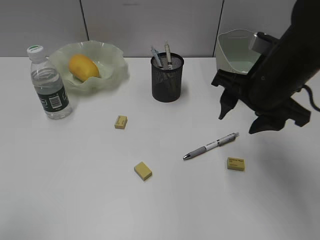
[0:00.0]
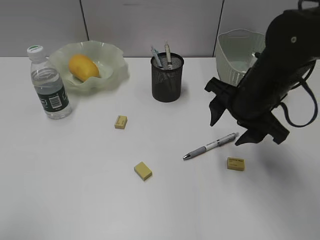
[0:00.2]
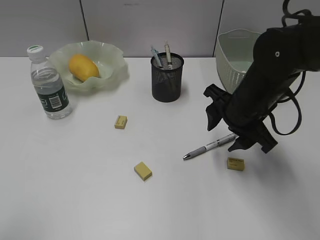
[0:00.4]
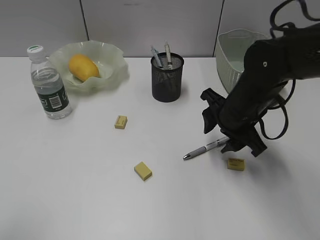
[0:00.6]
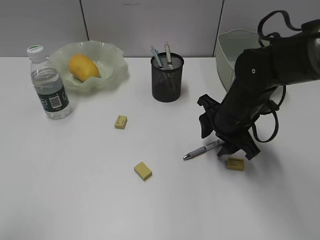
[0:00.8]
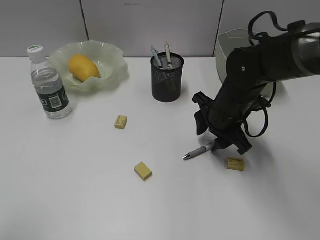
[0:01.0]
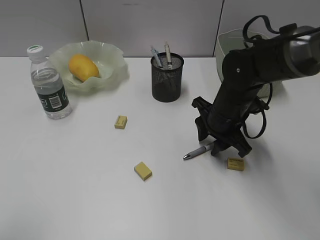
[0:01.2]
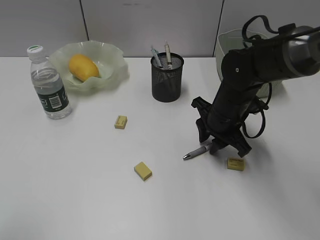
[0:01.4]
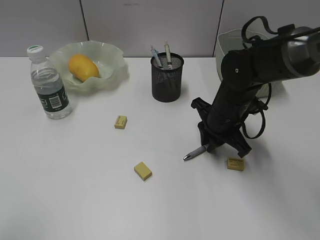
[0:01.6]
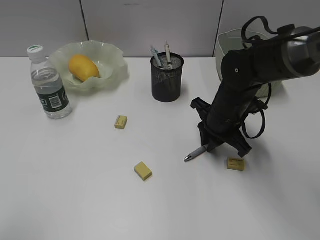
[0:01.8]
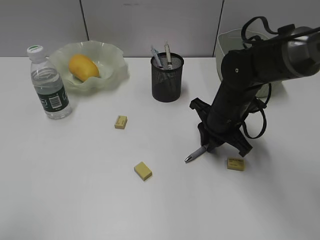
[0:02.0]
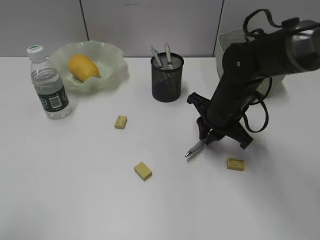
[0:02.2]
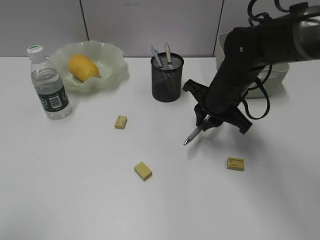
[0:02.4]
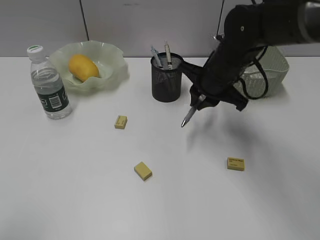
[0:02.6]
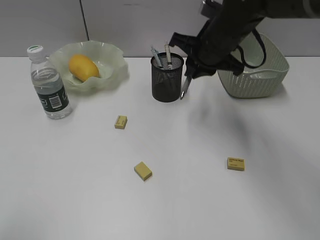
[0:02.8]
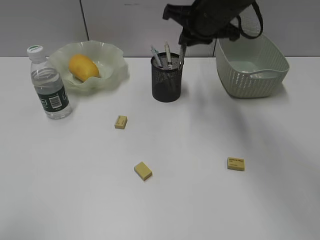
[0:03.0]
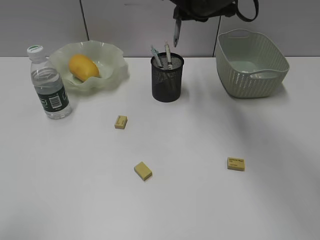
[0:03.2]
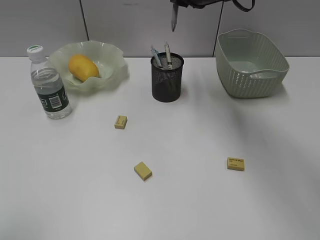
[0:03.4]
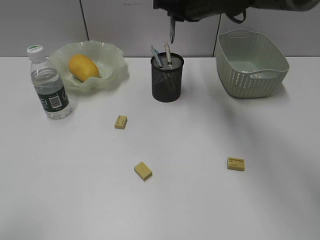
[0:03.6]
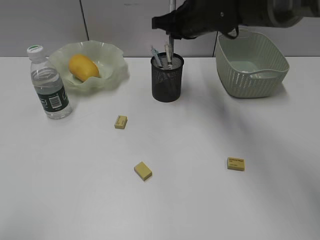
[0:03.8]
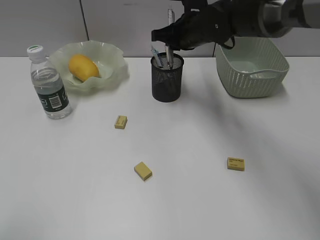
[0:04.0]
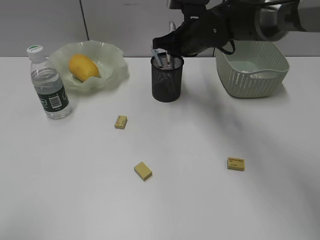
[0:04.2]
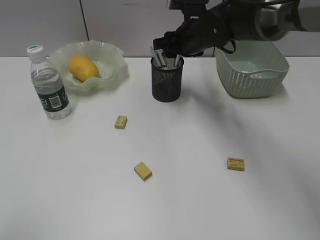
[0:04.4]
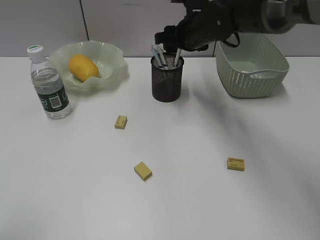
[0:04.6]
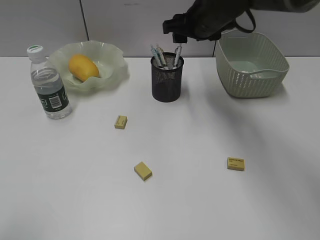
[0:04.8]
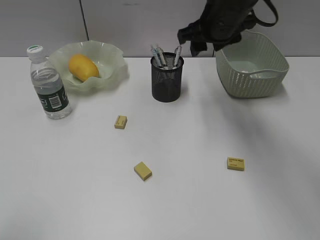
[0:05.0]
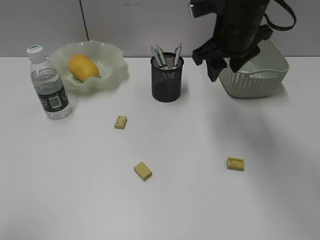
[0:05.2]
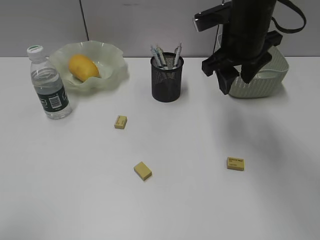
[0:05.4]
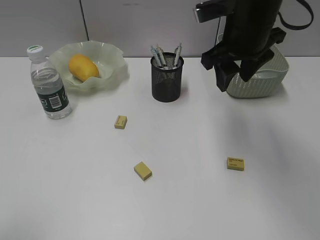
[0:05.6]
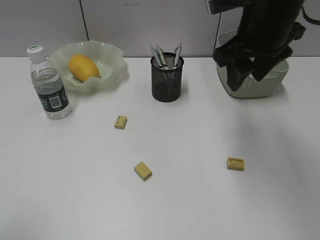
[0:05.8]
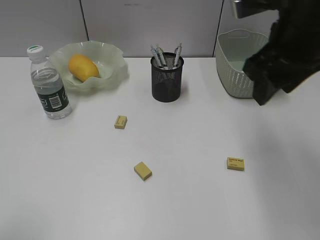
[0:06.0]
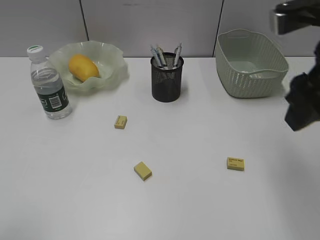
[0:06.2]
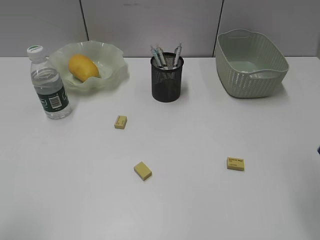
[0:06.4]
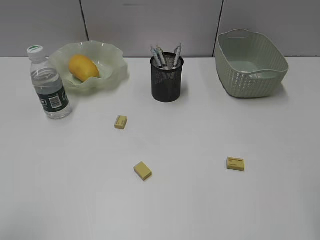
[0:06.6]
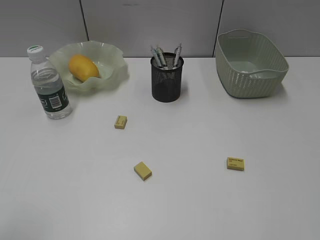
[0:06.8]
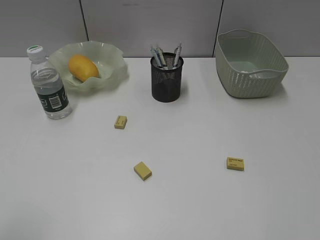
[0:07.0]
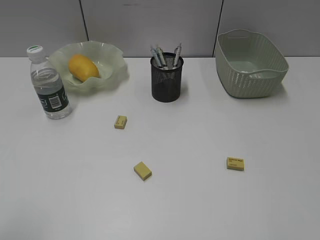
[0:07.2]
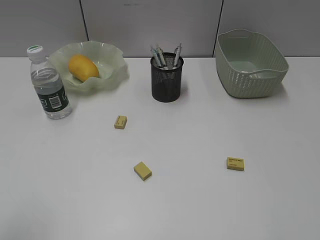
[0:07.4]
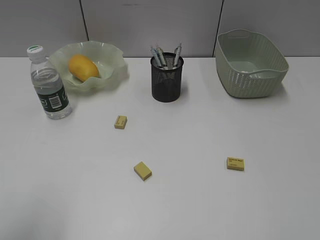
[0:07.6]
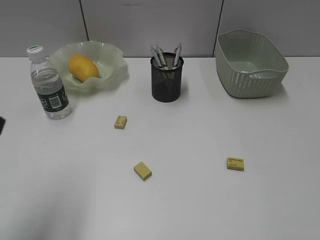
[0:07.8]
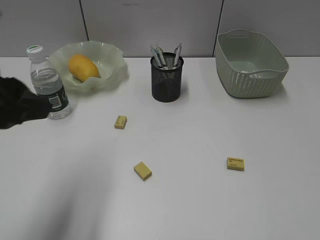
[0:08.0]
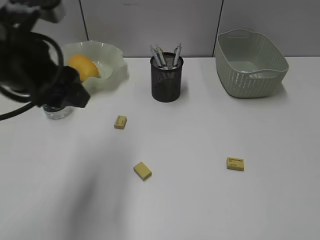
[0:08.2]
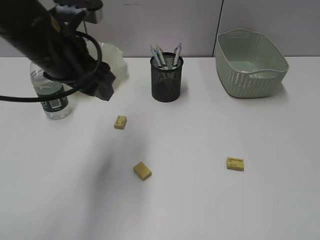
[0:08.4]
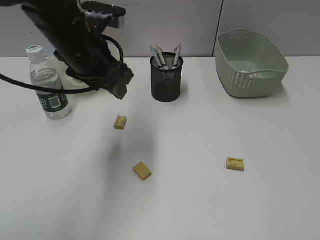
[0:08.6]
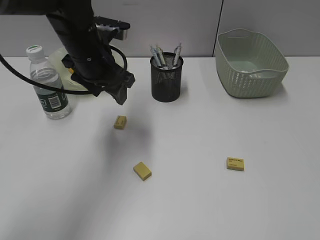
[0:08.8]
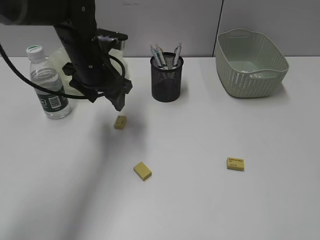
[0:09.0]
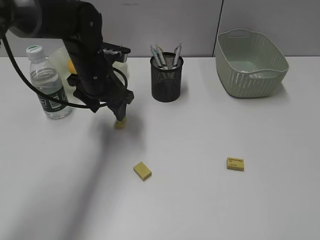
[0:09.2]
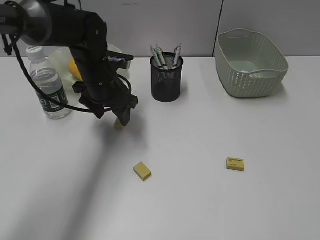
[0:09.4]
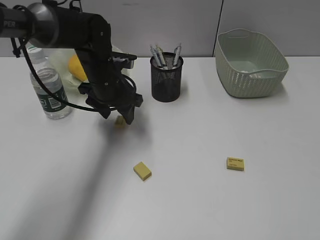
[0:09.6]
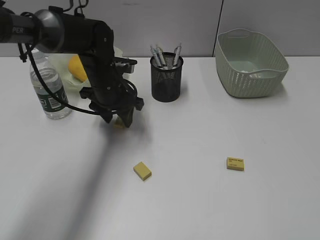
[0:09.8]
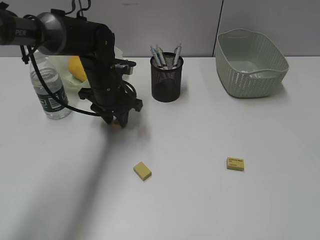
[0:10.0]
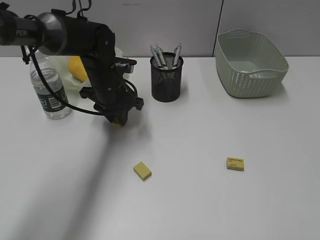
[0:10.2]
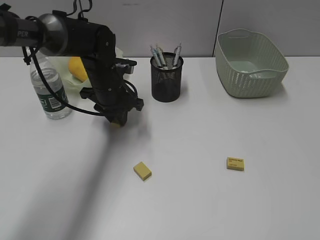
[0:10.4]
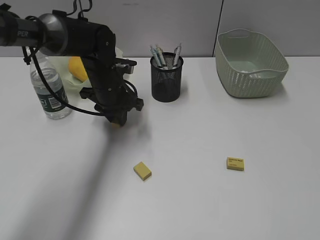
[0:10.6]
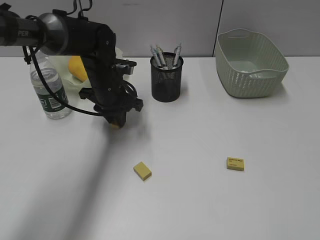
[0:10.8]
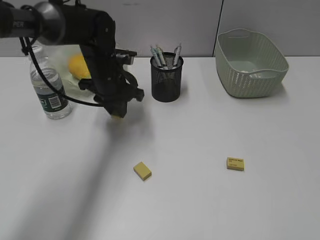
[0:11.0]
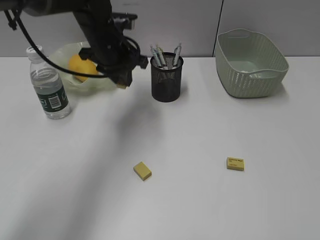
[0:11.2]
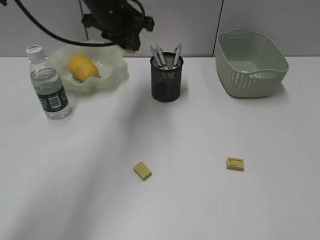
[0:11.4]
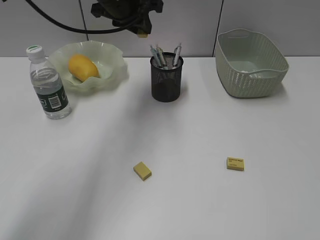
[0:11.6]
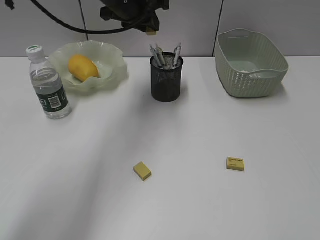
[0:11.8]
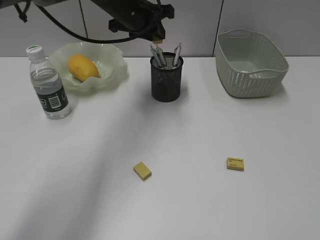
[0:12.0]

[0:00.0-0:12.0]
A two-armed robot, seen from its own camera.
Step, 0.0 to 2.0 s: Grasp the gray pen with right gripper.
Step, 2.2 to 4.4 s: Place the gray pen in pen holder with right gripper.
Step, 4.6 to 10.6 s: Grasp the eraser with left gripper.
0.0 to 1.6 s: The right gripper heads downward and forward, covering approximately 10 cm, and closes up.
1.6 to 3.0 s: The right gripper travels upward and forward by approximately 15 cm.
3.0 to 4.4 s: The right gripper moves downward, some 10 cm, and opens.
4.4 to 6.0 s: The right gripper shifts roughly 25 cm backward, upward and to the right.
6.0 to 7.6 s: The right gripper shifts roughly 25 cm backward and to the right.
7.6 to 9.0 s: The left gripper heads forward and to the right, covering roughly 35 cm.
9.0 to 10.4 s: The left gripper moves downward, some 5 cm, and closes.
10.4 to 12.0 s: The left gripper travels upward by some 15 cm.

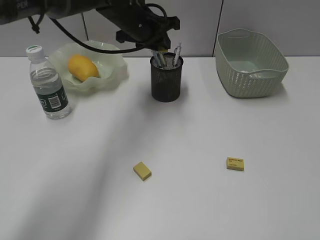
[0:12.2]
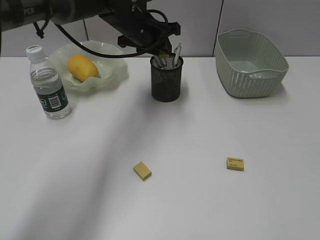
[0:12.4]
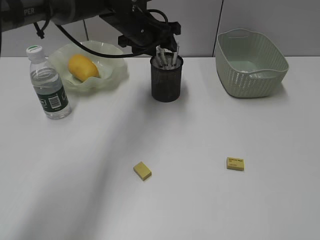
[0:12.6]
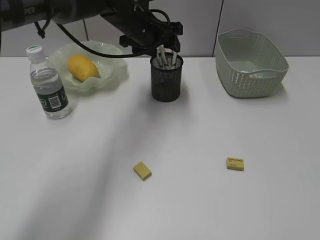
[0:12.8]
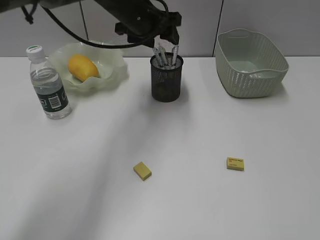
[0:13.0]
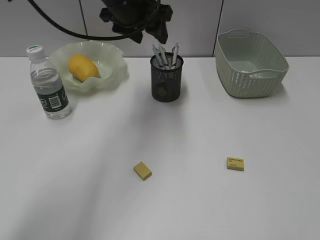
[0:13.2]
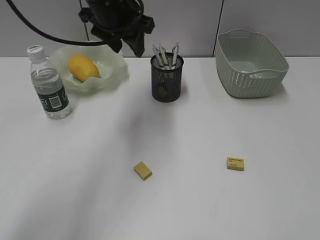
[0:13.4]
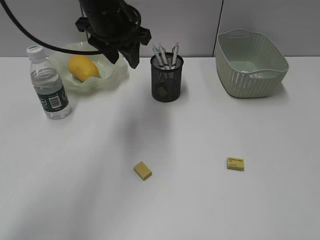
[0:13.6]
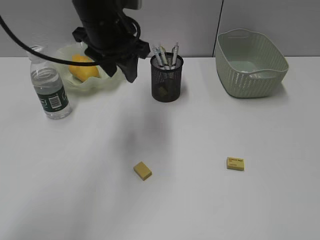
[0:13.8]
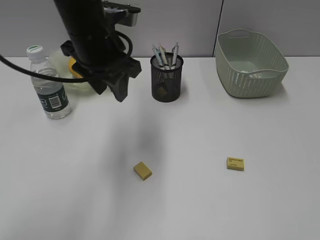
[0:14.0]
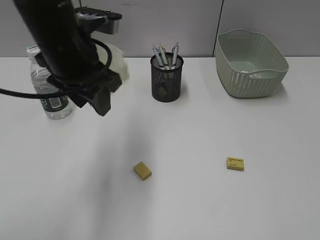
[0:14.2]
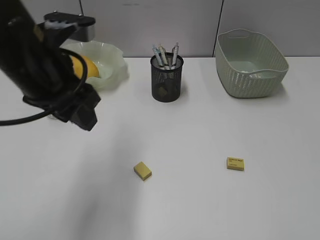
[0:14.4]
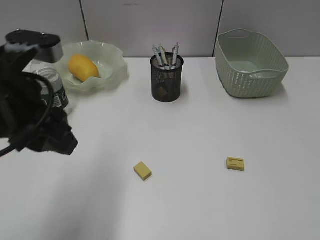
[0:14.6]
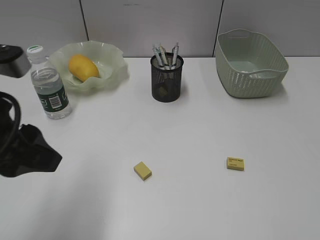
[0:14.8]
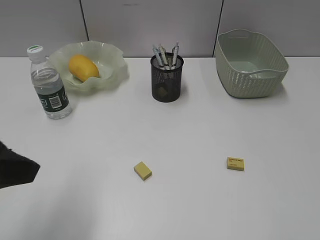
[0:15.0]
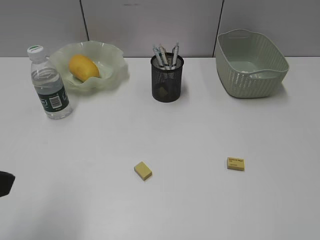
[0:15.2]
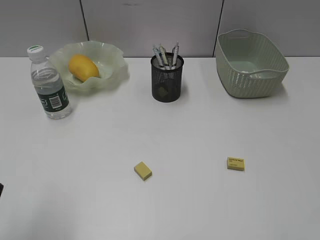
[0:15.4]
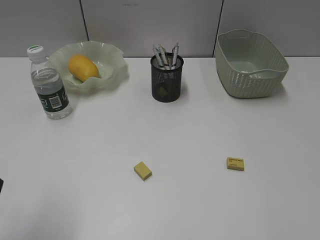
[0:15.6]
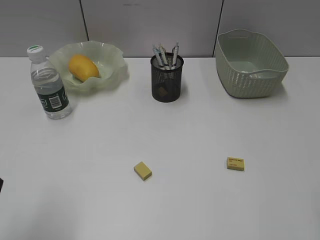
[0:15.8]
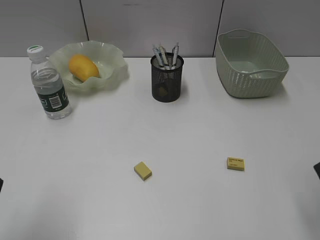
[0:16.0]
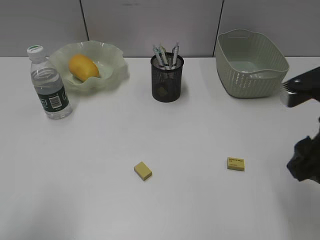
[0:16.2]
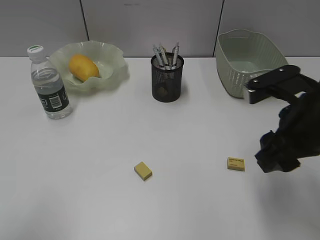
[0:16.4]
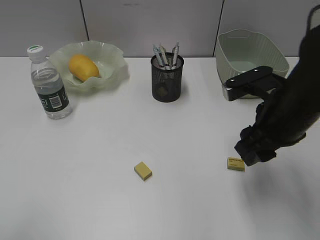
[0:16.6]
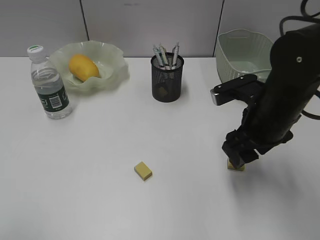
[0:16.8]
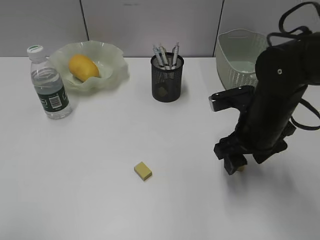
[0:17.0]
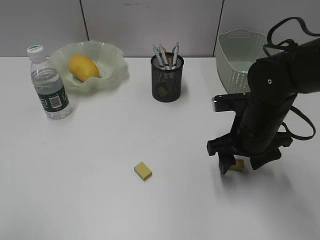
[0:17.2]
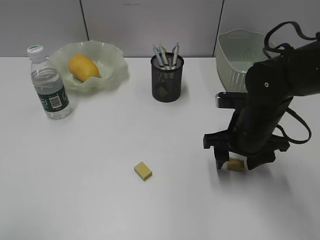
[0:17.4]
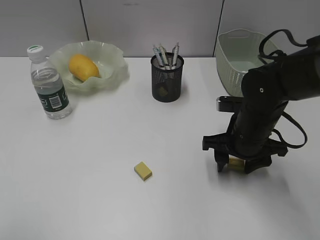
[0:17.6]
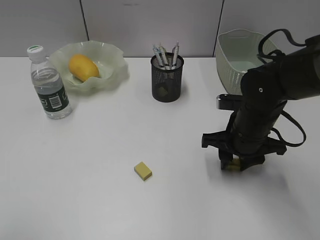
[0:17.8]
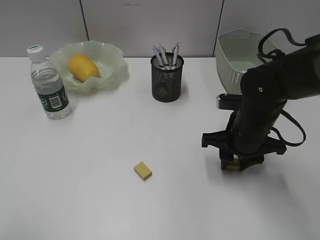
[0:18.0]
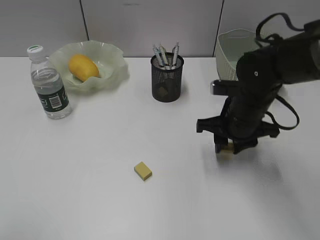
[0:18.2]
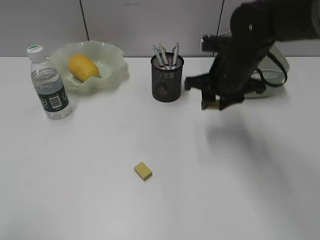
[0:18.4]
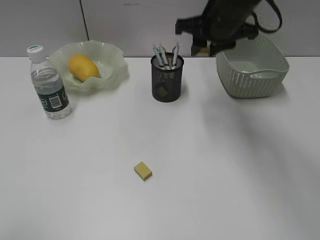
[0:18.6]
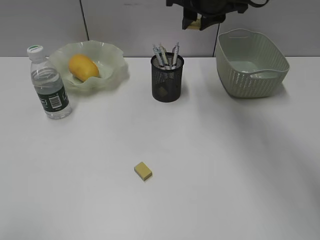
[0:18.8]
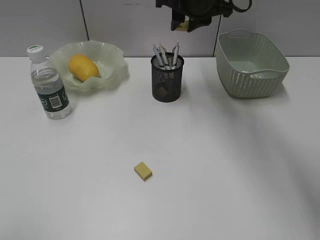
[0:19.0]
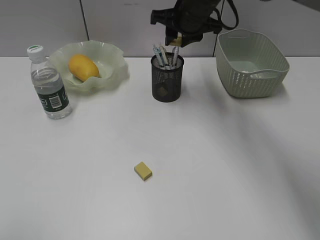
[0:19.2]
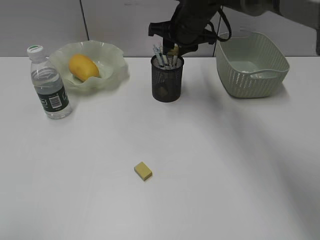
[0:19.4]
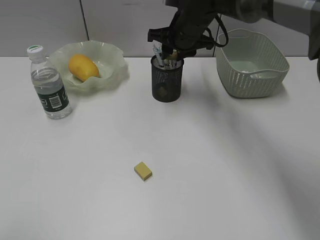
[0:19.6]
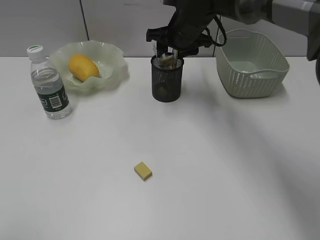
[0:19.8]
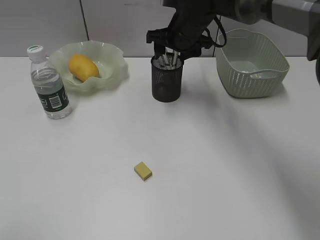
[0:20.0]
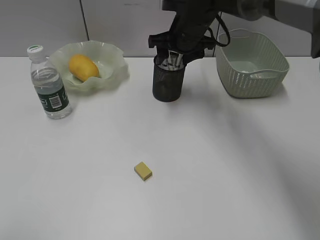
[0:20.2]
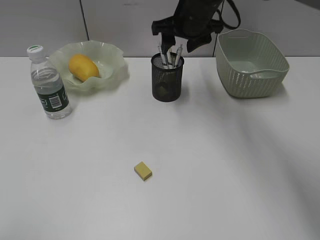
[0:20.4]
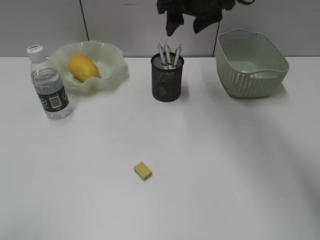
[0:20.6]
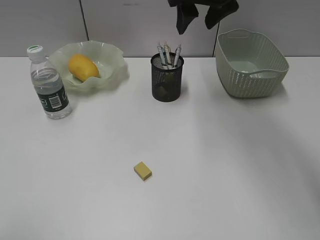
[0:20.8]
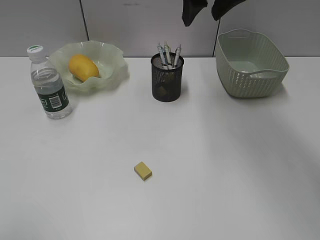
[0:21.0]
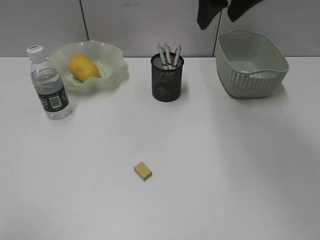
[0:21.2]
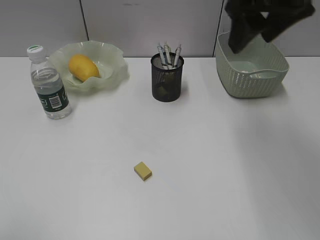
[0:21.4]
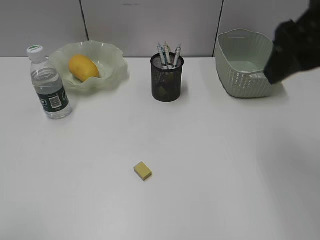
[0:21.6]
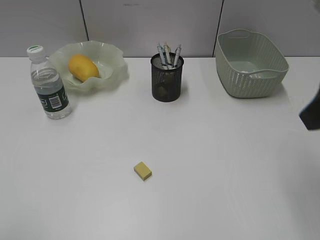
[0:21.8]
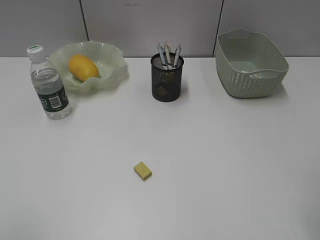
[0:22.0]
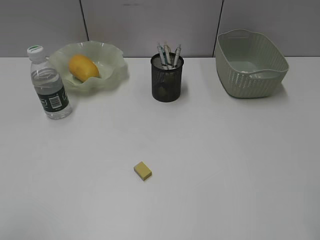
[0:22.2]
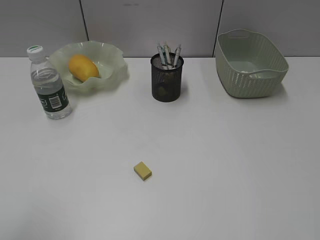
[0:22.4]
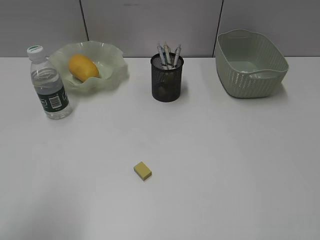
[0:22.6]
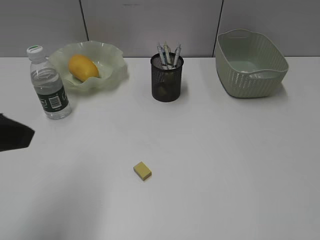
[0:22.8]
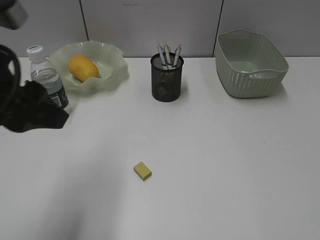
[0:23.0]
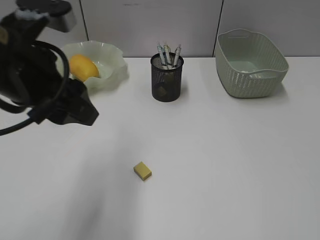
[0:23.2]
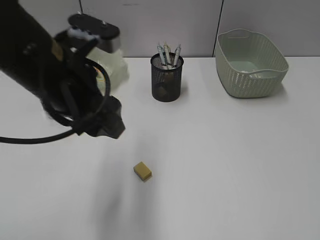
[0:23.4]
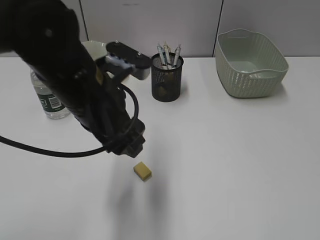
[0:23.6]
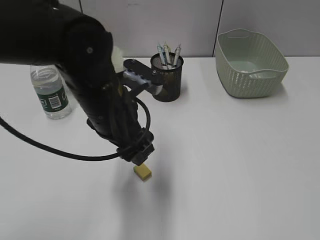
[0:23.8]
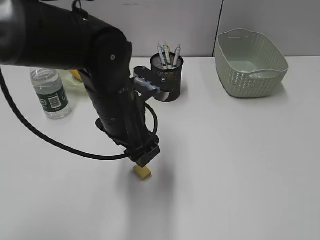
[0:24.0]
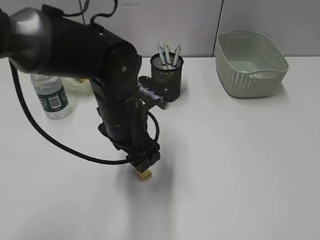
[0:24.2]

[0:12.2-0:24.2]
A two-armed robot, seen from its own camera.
Step, 12.8 to 17.8 s: Grasp the eraser with right gripper.
Step, 18.0 to 19.8 s: Place the eraser in pen holder with right gripper.
12.2 to 13.8 s: The left gripper travels backward by about 10 cm, and opens up.
13.8 to 15.2 s: The left gripper travels backward and to the left by approximately 30 cm.
15.2 to 16.6 s: The right gripper heads forward, to the left and downward, covering approximately 25 cm.
16.6 to 18.2 s: The right gripper moves downward and forward, approximately 10 cm.
18.2 to 19.8 s: The right gripper shifts about 20 cm forward, to the left and upward, and opens.
19.8 to 21.2 s: The right gripper travels upward and backward by approximately 20 cm.
21.2 to 22.6 s: The left gripper moves forward, roughly 5 cm; the right gripper is displaced backward and to the right by about 35 cm.
22.6 to 24.2 s: The left gripper heads to the right, forward and downward, covering approximately 30 cm.
